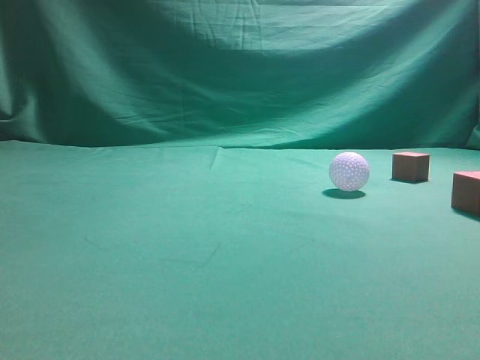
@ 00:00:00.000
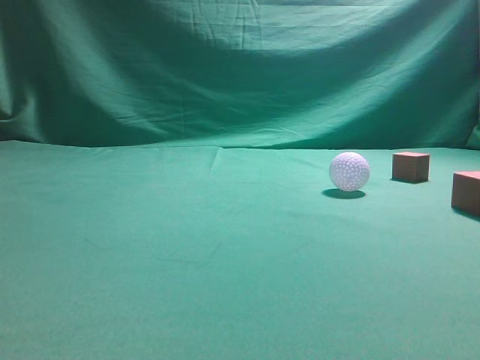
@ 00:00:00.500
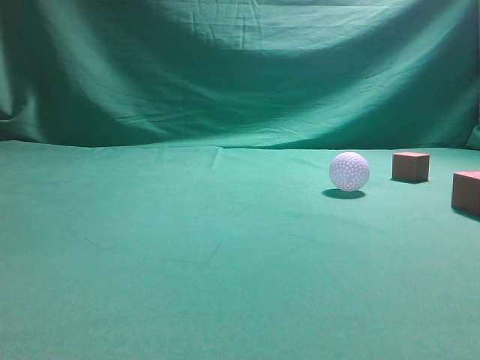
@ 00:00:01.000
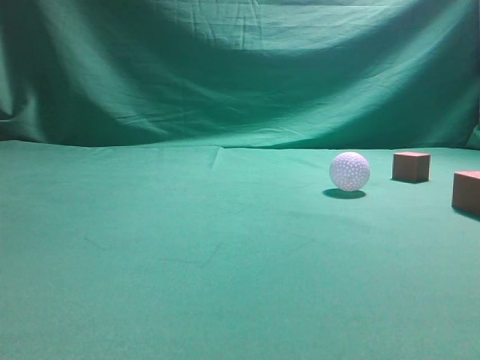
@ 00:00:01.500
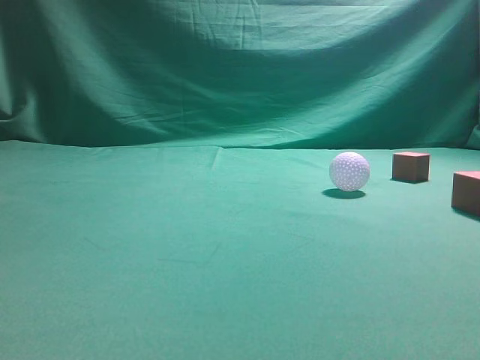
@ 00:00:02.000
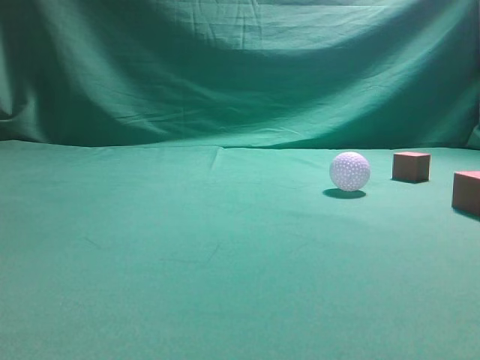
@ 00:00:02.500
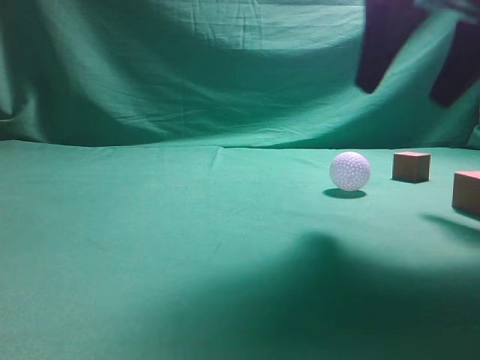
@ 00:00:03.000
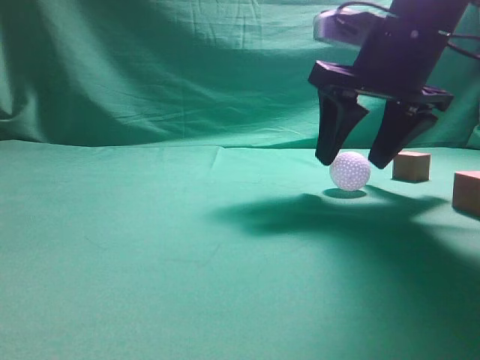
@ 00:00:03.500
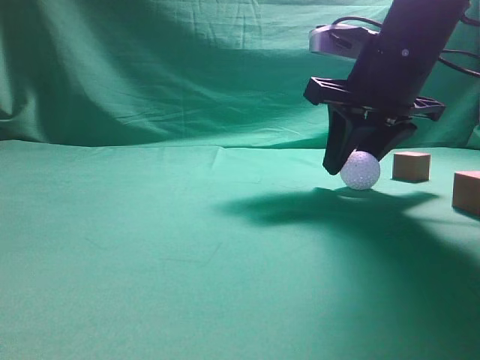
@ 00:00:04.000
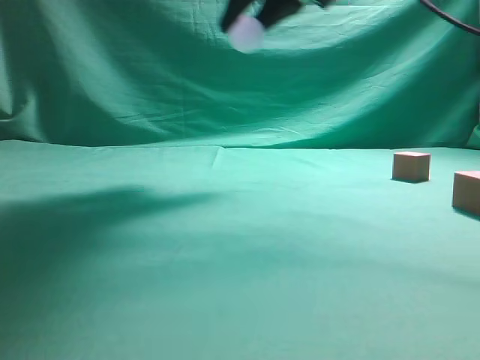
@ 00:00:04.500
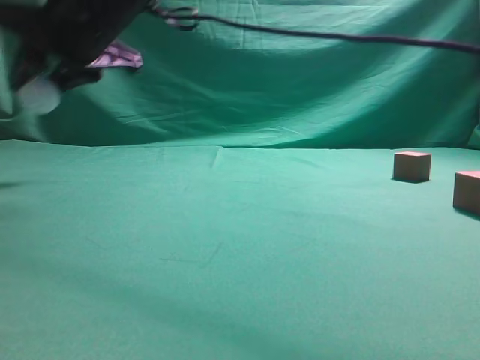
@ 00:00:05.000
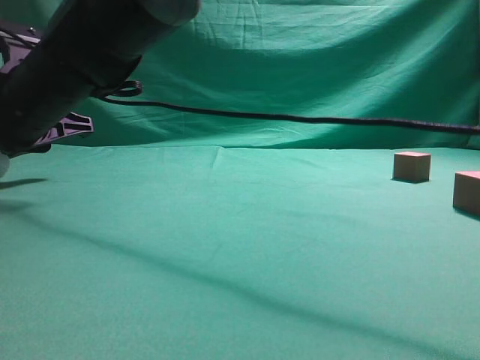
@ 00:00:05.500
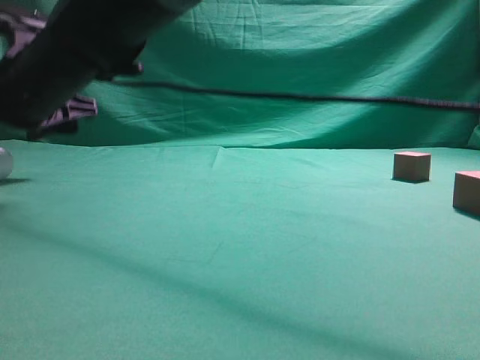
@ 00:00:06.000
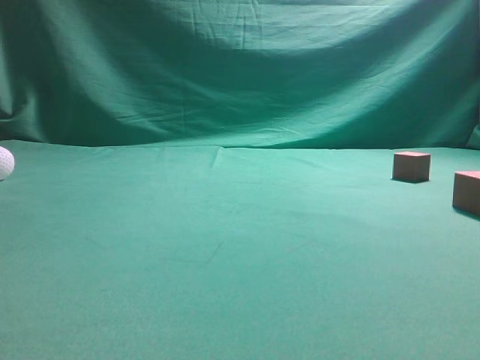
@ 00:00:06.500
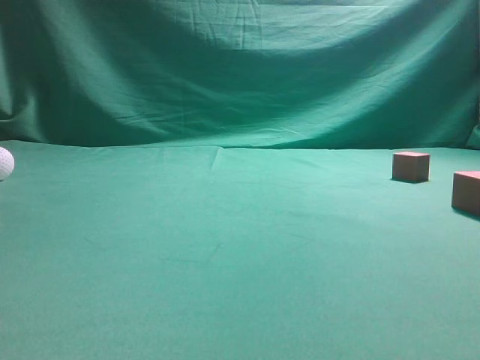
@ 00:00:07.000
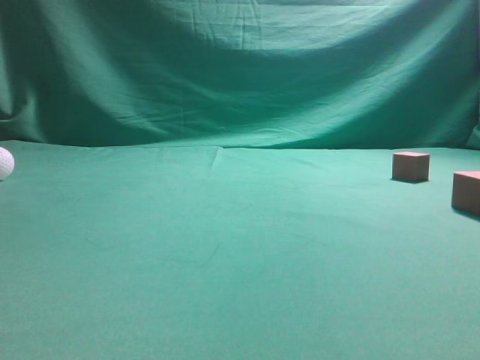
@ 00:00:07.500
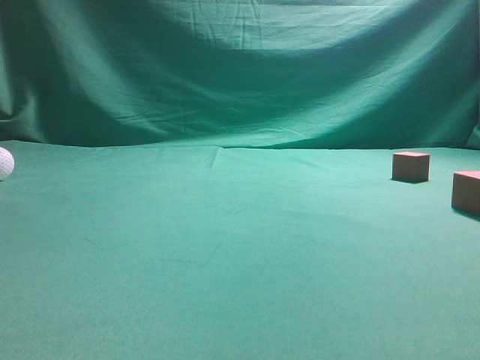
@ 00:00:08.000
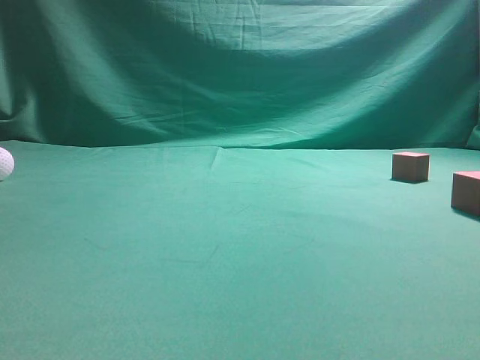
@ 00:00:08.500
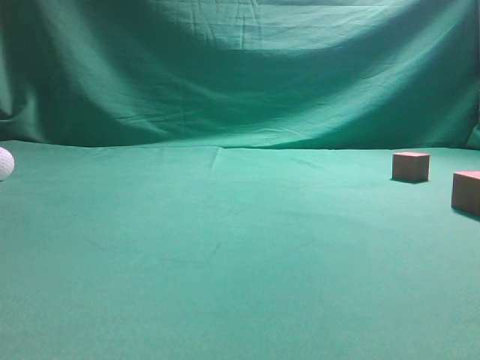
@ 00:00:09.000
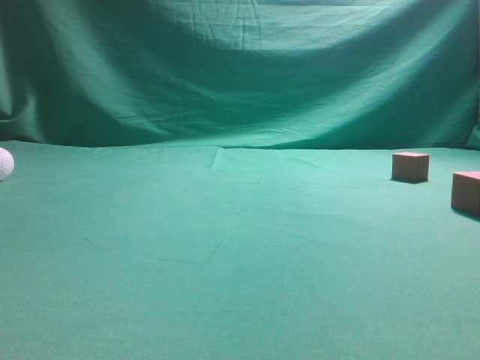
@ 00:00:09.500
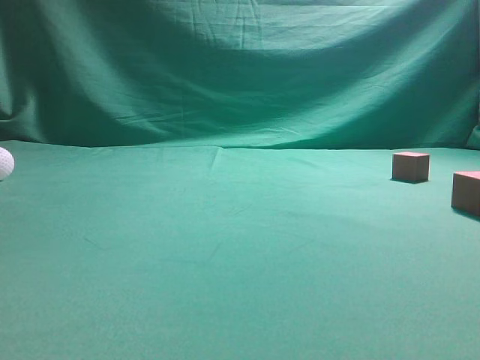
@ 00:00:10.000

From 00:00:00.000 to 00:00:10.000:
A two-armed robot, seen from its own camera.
Step, from 00:00:00.000 to 00:00:04.000: Grasp the spherical object on the right side.
From 00:00:02.000 to 00:00:04.000: The right gripper moves forward, to the left and downward, approximately 35 cm, and opens up.
From 00:00:04.000 to 00:00:06.000: The right gripper goes approximately 35 cm to the left, and opens.
From 00:00:06.000 to 00:00:08.000: The right gripper travels to the right, backward and upward by roughly 50 cm, and closes.
